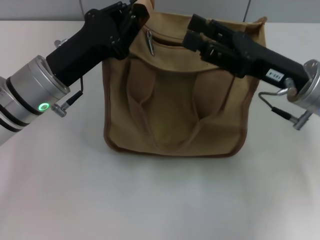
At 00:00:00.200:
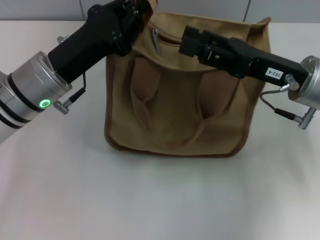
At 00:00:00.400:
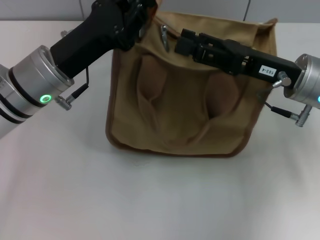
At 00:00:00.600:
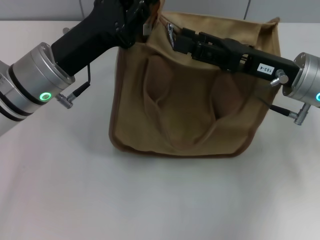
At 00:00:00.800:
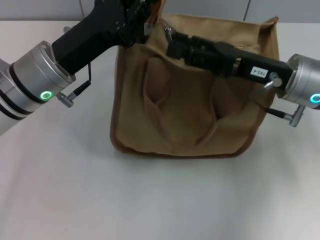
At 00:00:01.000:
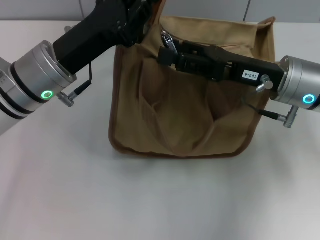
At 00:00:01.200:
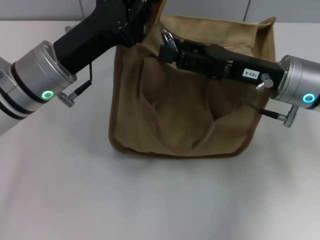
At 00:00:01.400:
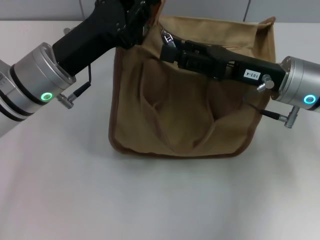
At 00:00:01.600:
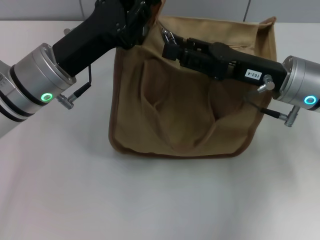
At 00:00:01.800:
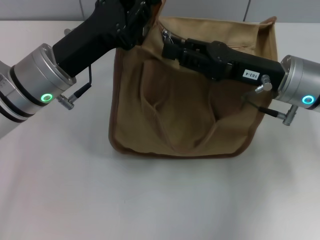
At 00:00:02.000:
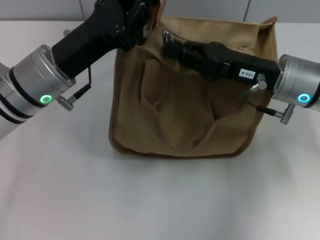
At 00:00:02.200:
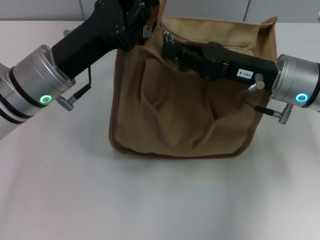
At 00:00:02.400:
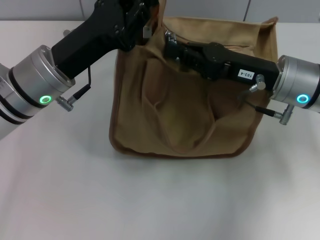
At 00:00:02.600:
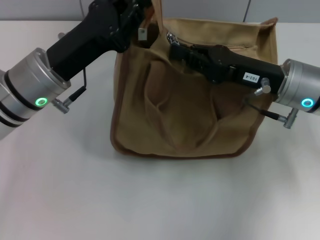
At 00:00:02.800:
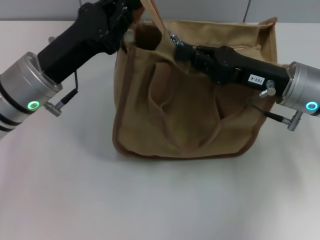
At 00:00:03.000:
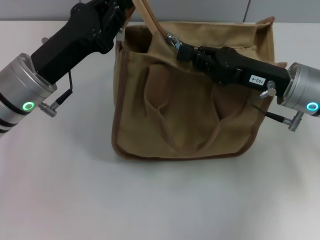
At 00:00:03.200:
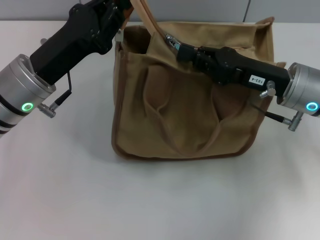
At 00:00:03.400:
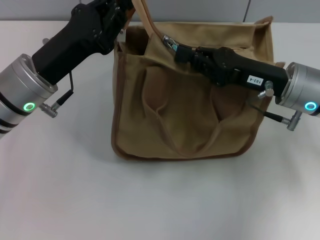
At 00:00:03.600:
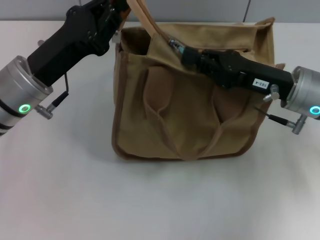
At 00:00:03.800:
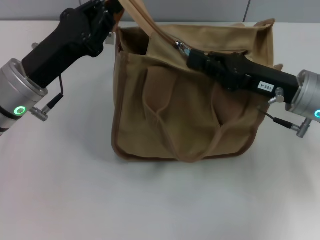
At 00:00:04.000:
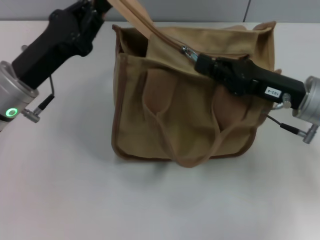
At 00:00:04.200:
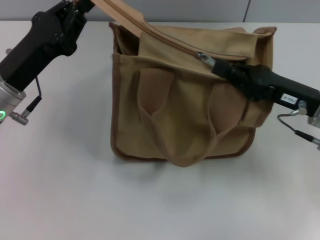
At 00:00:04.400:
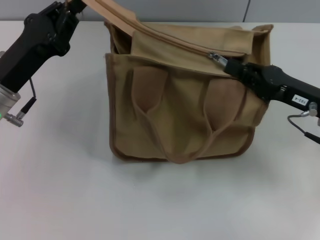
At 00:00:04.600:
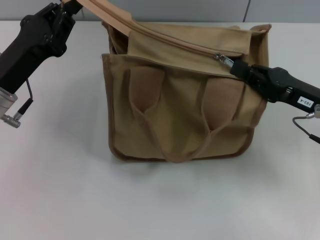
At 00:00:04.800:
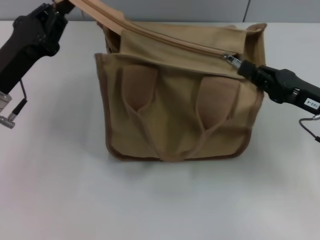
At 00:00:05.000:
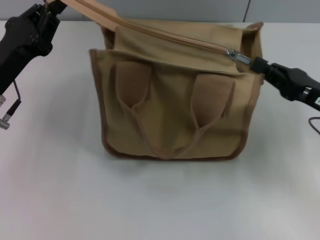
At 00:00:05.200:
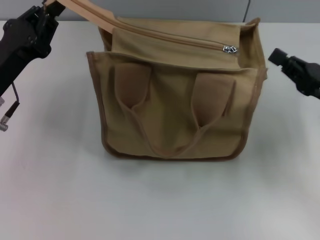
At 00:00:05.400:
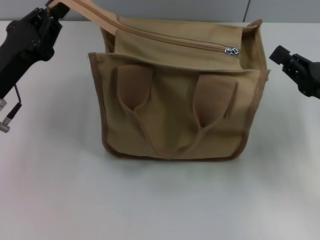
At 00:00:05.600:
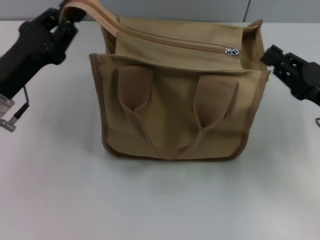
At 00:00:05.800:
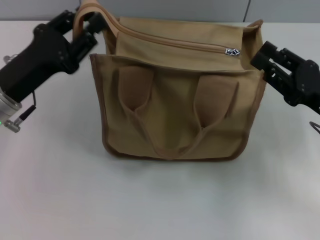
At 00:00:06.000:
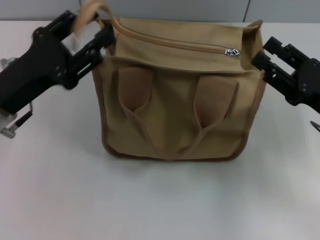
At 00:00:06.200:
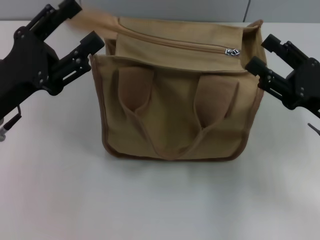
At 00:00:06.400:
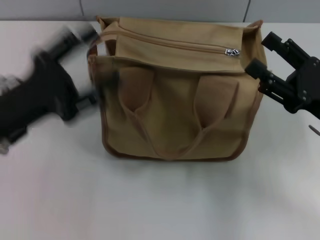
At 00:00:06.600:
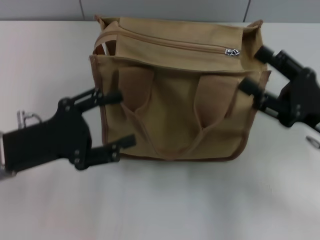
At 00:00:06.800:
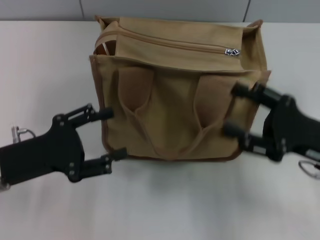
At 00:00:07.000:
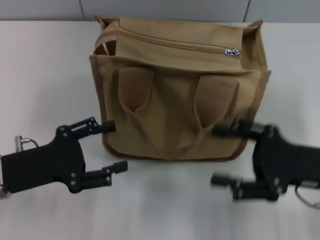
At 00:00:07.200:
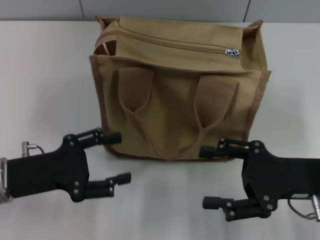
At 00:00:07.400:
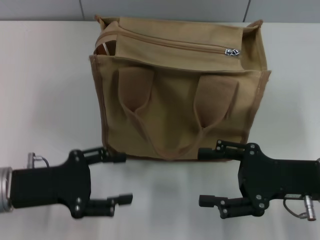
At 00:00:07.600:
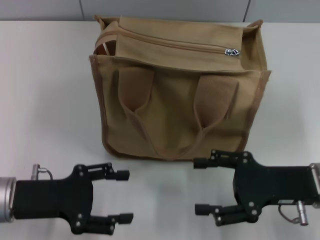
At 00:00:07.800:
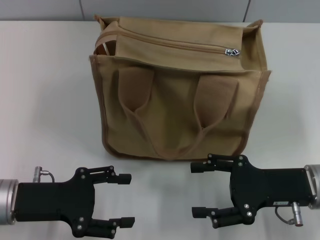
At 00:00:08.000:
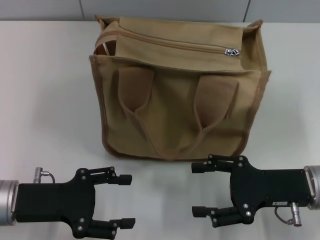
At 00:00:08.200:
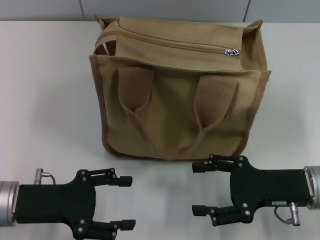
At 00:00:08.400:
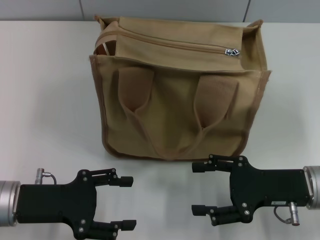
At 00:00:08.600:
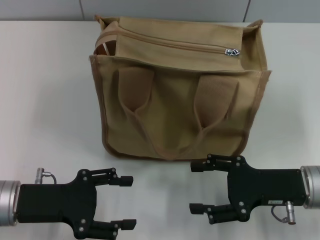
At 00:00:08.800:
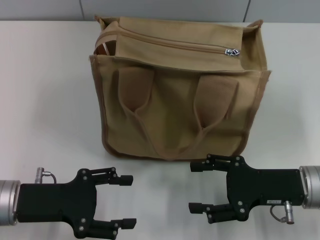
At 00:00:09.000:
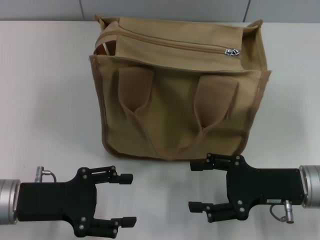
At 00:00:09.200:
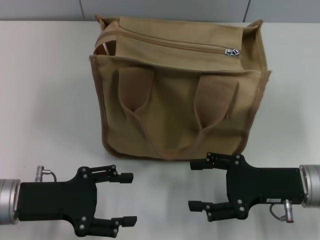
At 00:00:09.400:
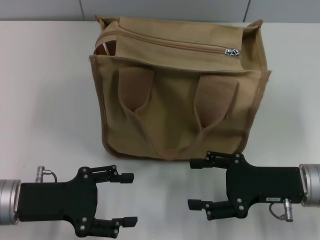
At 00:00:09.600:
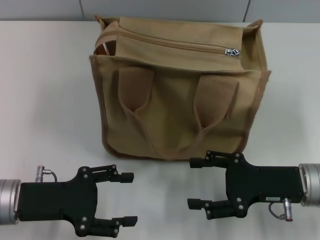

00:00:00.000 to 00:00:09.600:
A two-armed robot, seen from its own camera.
Step, 00:00:00.000 to 00:00:05.400: Pull up the zipper with your right hand.
Step, 00:00:05.600 to 00:00:06.200: Grab the zipper with your left hand.
00:00:01.600 to 00:00:03.200: The right gripper closes.
00:00:03.200 to 00:00:04.800: The right gripper is displaced to the right by some 5 cm; the left gripper goes approximately 5 cm to the left.
00:00:04.800 to 00:00:06.400: The right gripper opens up. Meanwhile the left gripper opens.
00:00:06.400 to 00:00:08.000: The right gripper moves roughly 5 cm. Meanwhile the left gripper moves downward, some 5 cm.
00:00:08.000 to 00:00:09.600: Both grippers stay about where they are.
